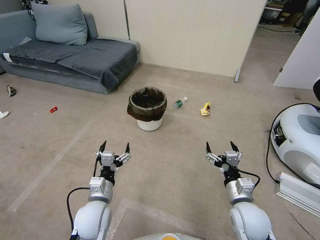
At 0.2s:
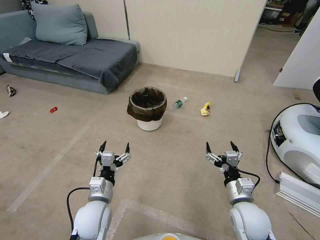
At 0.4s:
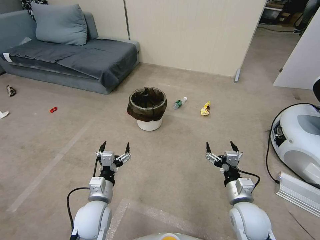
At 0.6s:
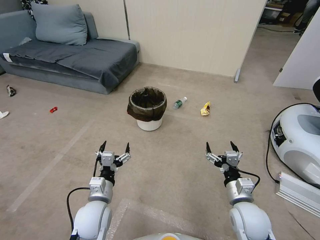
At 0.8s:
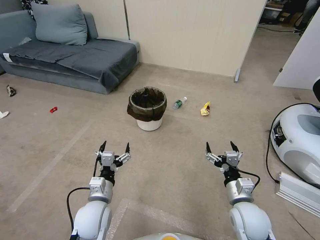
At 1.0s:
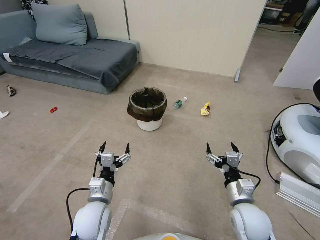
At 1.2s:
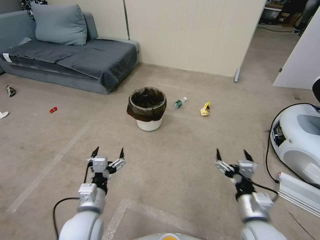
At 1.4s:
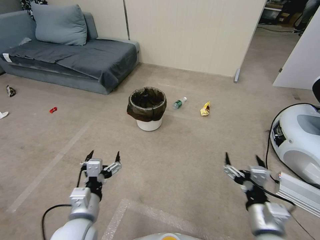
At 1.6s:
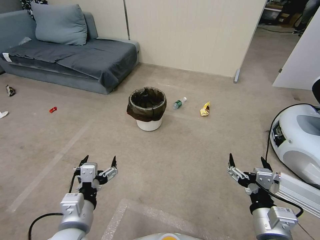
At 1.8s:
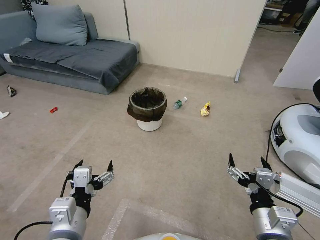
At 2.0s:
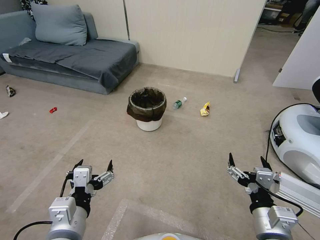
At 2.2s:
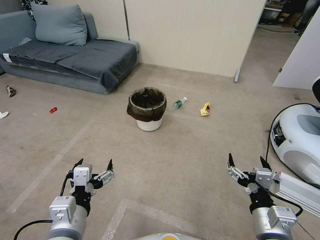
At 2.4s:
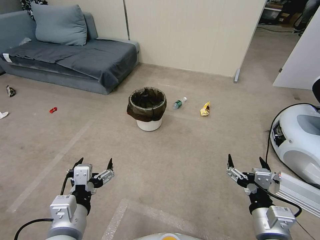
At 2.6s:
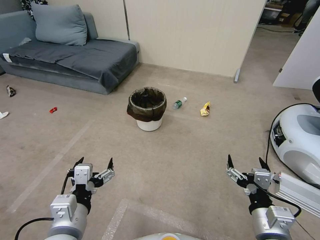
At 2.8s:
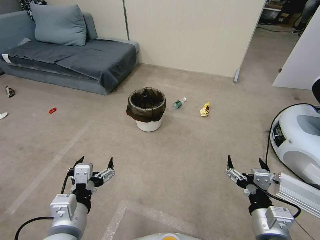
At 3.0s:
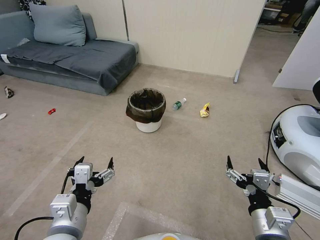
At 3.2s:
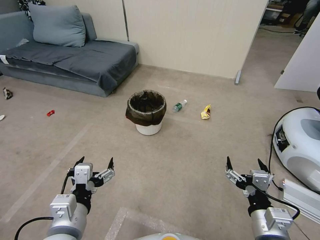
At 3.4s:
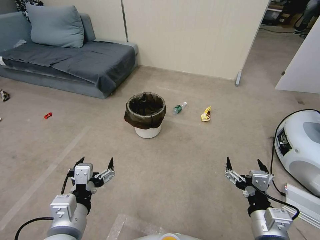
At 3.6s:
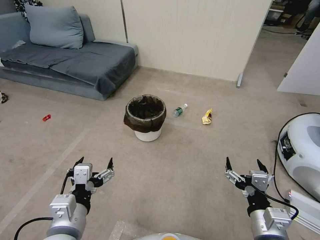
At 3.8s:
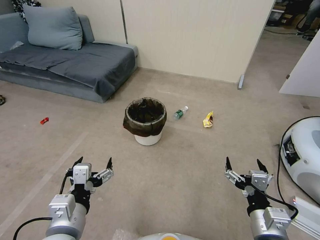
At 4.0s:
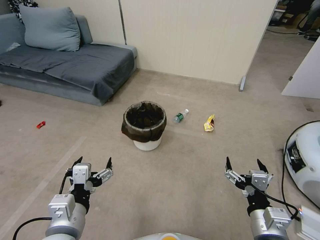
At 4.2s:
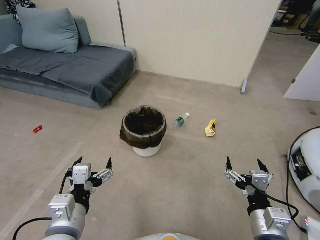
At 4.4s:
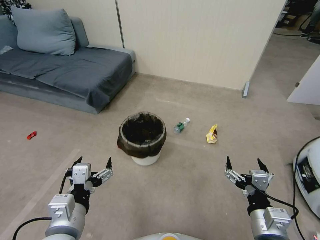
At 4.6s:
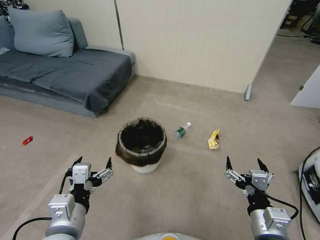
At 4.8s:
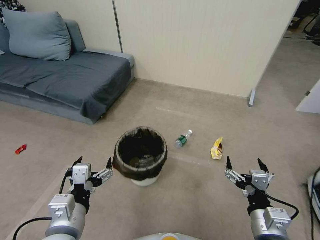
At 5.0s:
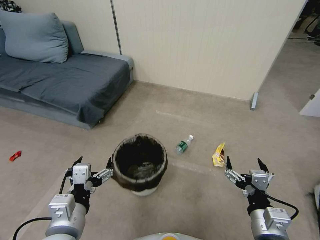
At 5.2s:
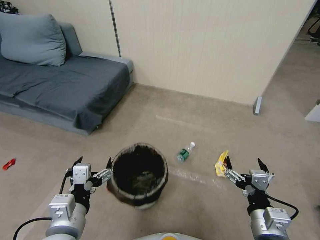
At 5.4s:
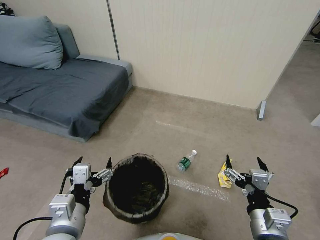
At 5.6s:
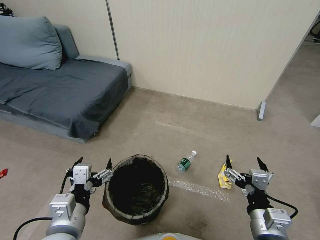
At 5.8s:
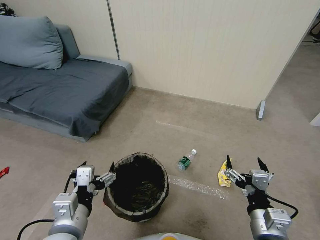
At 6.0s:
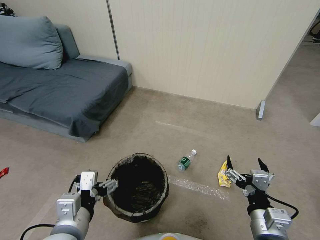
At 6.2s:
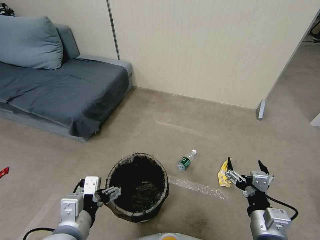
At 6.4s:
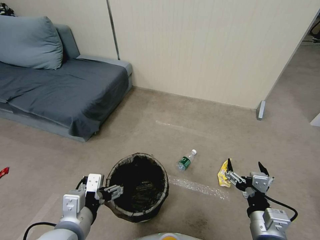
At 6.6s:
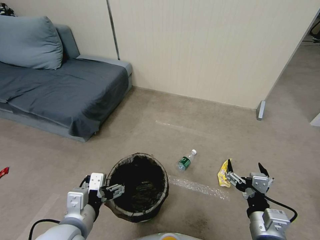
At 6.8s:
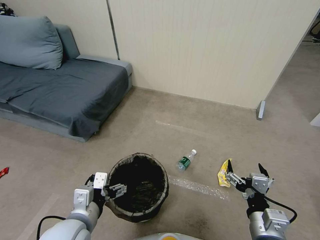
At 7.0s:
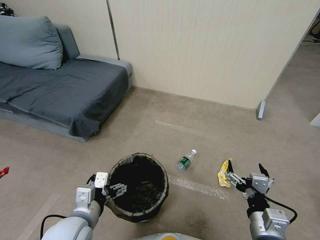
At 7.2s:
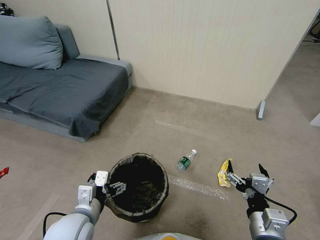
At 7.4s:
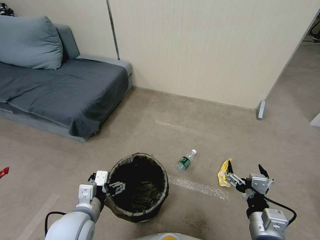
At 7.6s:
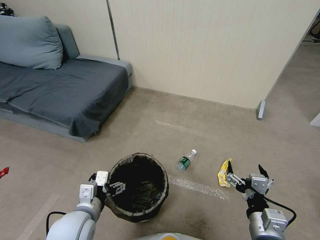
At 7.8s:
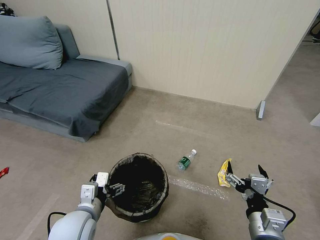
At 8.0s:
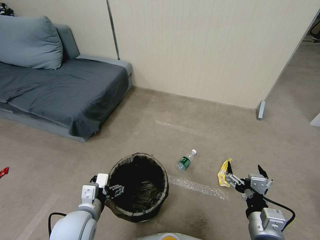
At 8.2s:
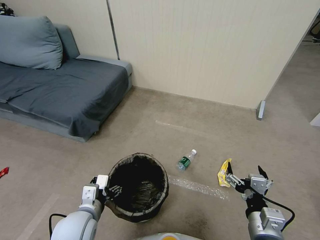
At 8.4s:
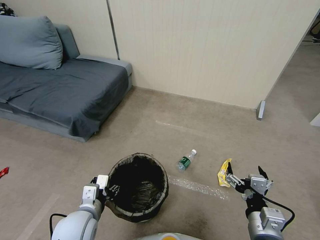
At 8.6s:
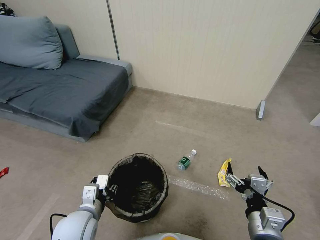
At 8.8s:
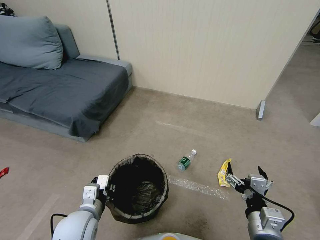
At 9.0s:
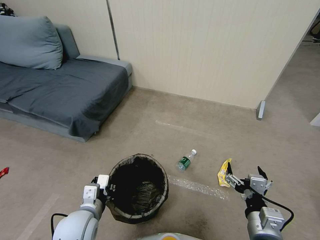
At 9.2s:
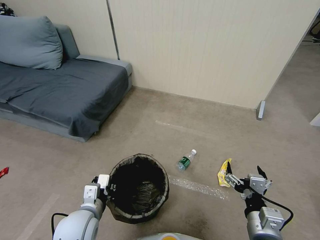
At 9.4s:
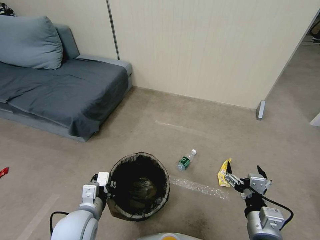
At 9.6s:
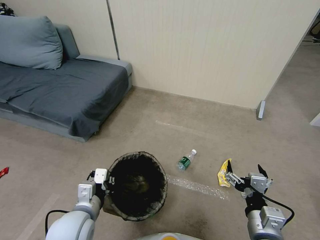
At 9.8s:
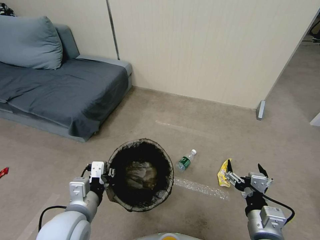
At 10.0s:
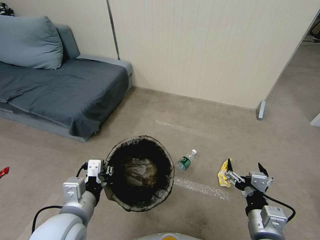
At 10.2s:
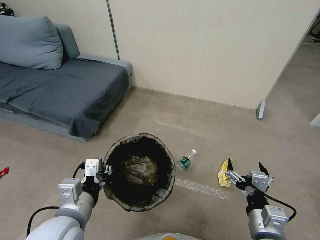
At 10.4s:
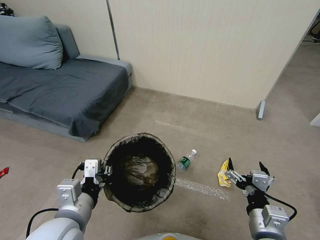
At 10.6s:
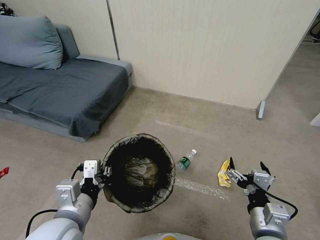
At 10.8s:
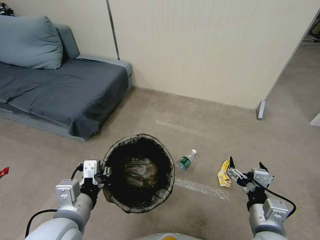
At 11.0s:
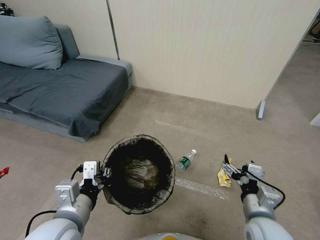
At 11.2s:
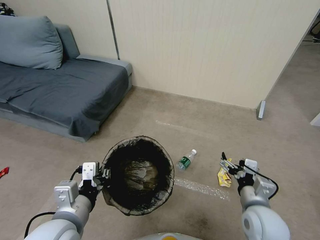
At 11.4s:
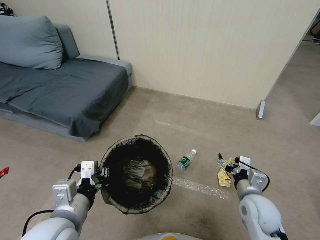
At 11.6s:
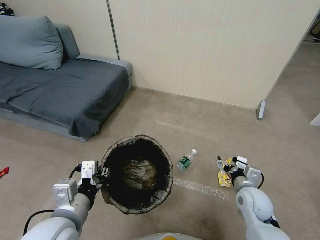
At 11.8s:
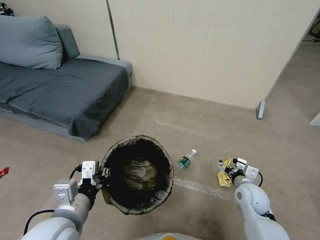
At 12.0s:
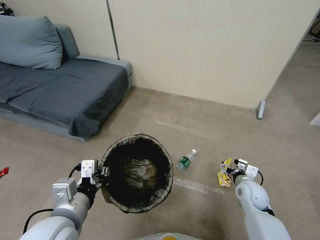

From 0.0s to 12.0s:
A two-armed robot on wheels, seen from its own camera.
Task of the whole recording: Pick up the trash bin, then pick up the garbage from the floor and place it into the trash bin.
From 1.6s to 3.0s: The grippers make only small movements.
From 6.0s to 7.6s: The left gripper goes some 10 cm downward and forward.
From 7.6s to 9.0s: The left gripper closes its fingers.
From 9.0s to 10.4s: The left gripper moves upward, some 10 cm.
From 10.4s to 12.0s: The right gripper is displaced forward, downward and to the right by some 25 cm.

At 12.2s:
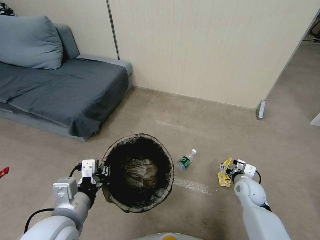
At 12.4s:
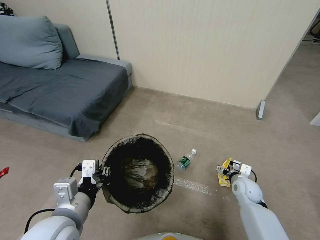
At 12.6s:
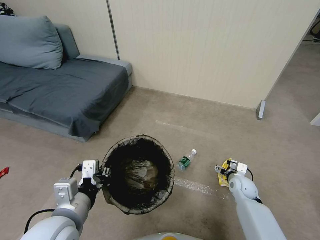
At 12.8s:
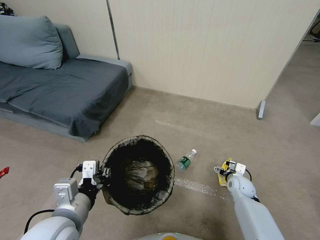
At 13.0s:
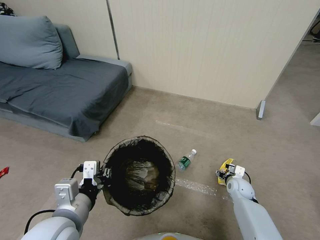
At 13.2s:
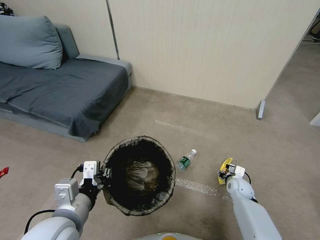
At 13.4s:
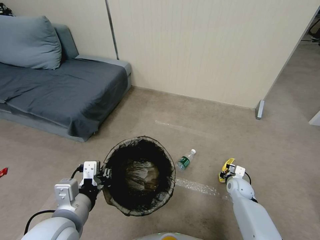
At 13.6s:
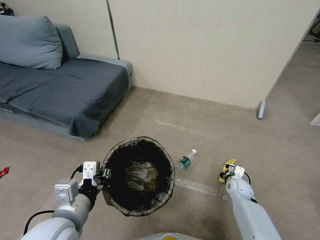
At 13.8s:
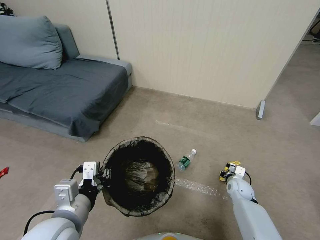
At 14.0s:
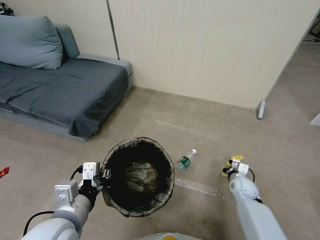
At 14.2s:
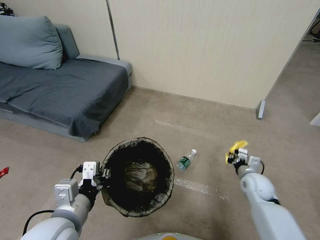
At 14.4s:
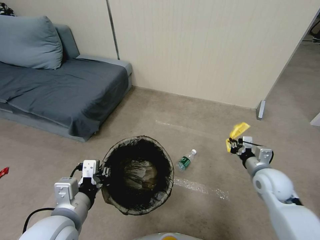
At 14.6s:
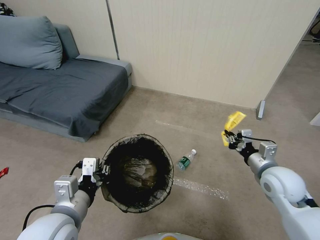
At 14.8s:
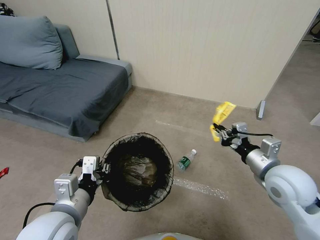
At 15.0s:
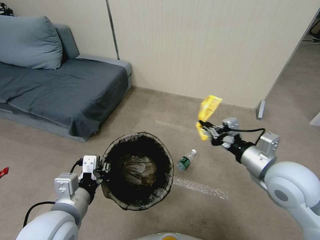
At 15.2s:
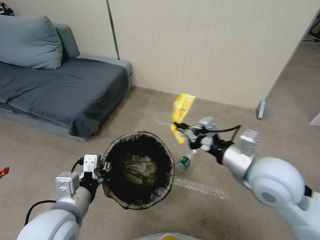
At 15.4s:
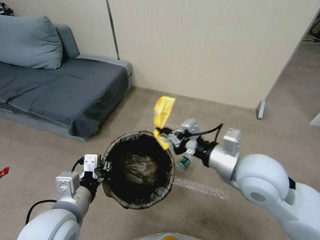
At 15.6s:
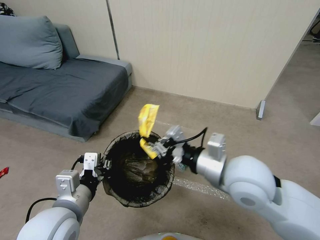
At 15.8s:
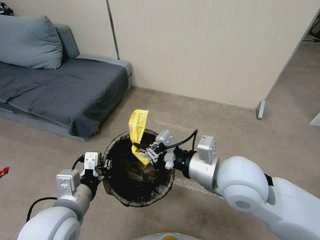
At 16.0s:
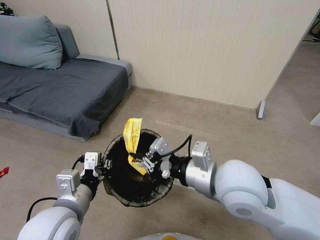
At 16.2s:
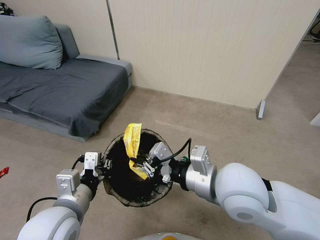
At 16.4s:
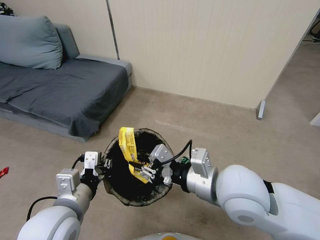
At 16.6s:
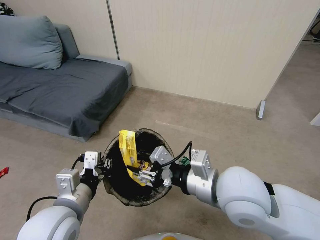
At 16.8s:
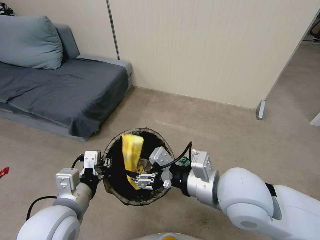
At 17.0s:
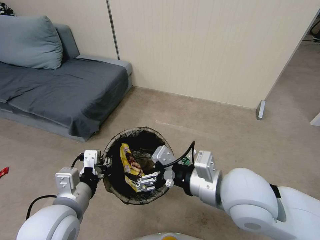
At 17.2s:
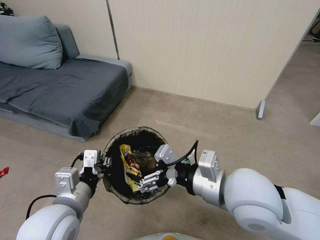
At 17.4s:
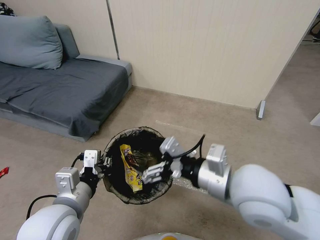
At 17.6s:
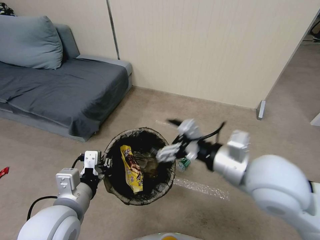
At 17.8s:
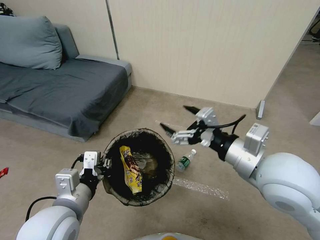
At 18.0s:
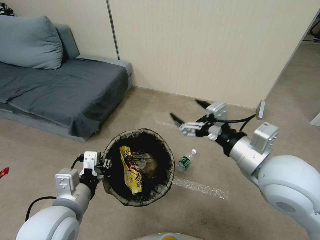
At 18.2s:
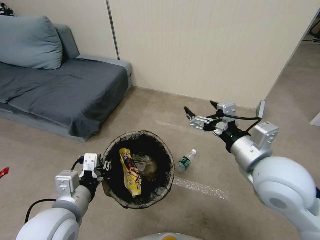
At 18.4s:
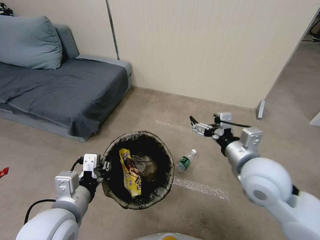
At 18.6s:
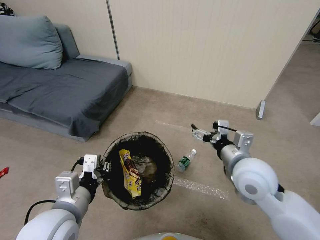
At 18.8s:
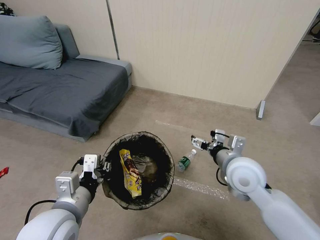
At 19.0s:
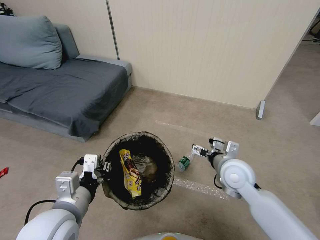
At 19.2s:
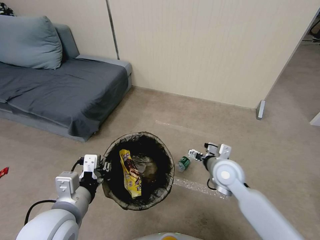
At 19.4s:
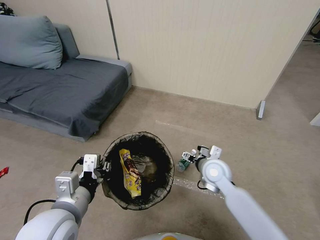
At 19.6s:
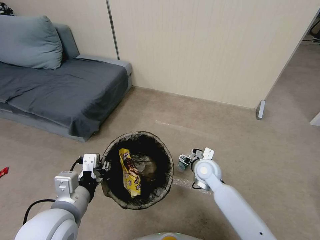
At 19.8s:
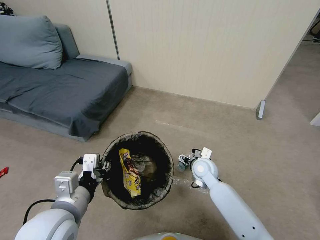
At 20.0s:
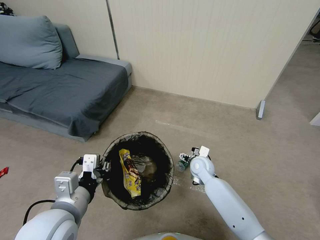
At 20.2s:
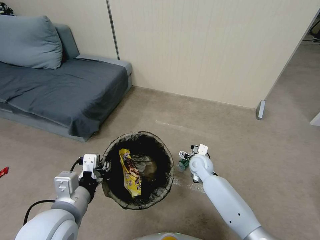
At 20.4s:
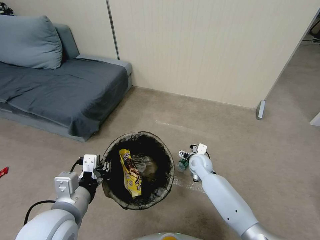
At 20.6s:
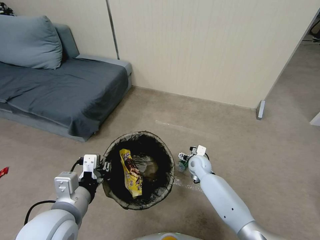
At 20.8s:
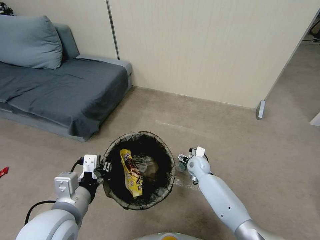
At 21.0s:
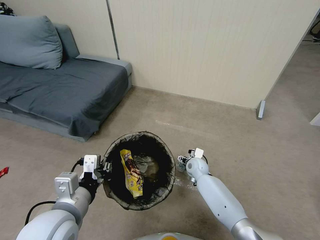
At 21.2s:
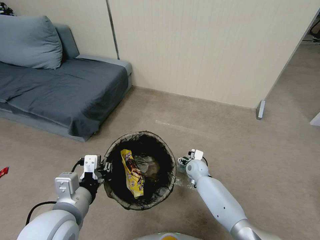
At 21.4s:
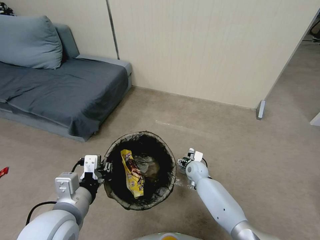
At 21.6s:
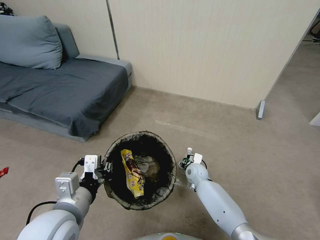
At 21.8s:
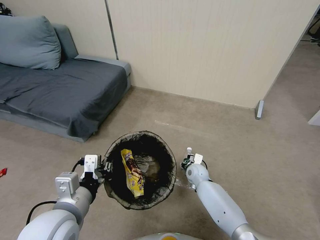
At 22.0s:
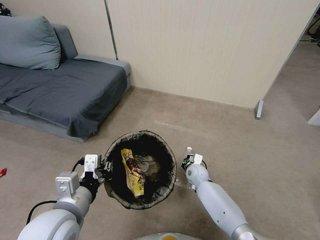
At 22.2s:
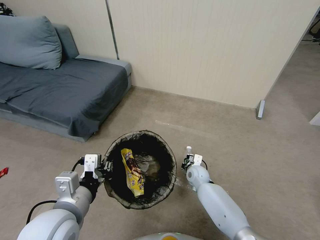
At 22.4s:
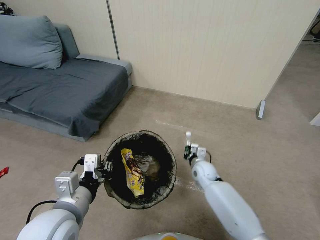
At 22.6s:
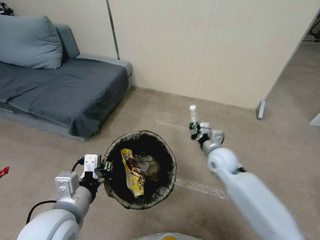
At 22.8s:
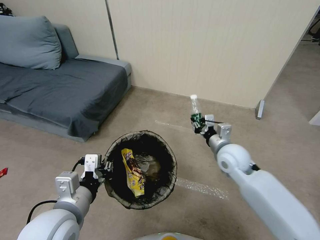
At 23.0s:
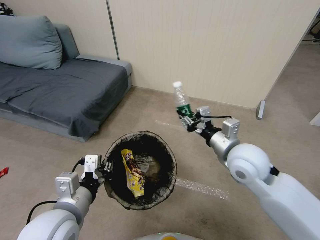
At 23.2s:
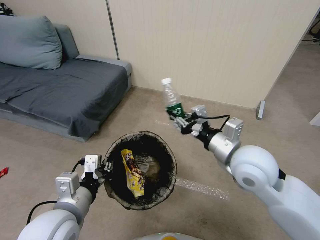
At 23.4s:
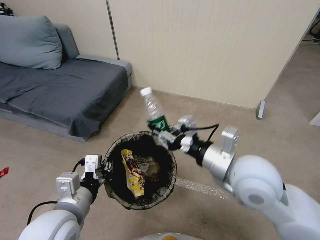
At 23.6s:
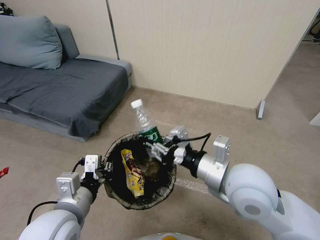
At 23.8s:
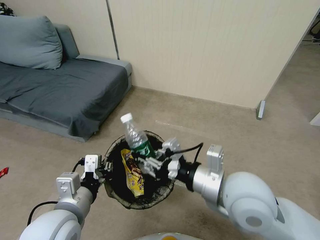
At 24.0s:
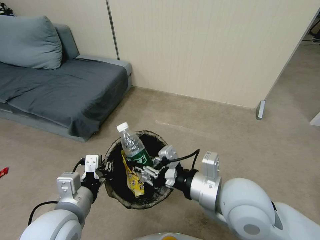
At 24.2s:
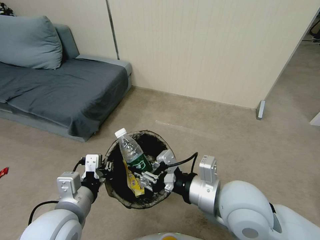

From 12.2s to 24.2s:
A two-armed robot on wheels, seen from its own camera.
Task of the whole recording: Pick up the trash bin, then pick up the garbage from the floor and place it into the trash bin.
From 12.2s to 13.8s: The right gripper heads downward, covering about 10 cm, and closes its fingers.
From 13.8s to 15.2s: The right gripper shifts some 35 cm upward.
From 15.2s to 16.6s: The right gripper moves to the left, some 10 cm, and opens up.
From 16.6s to 18.2s: The right gripper heads to the right, covering roughly 10 cm, and opens up.
From 18.2s to 19.8s: The right gripper travels downward and forward by about 30 cm.
From 19.8s to 21.2s: The right gripper travels downward by about 10 cm.
From 21.2s to 22.6s: The right gripper heads upward, covering approximately 15 cm, and closes.
From 22.6s to 24.2s: The right gripper shifts approximately 25 cm backward and upward.
